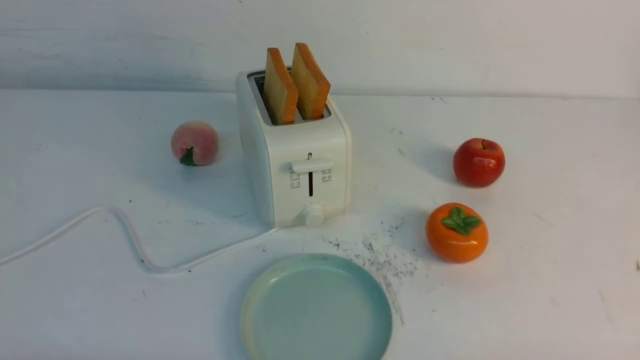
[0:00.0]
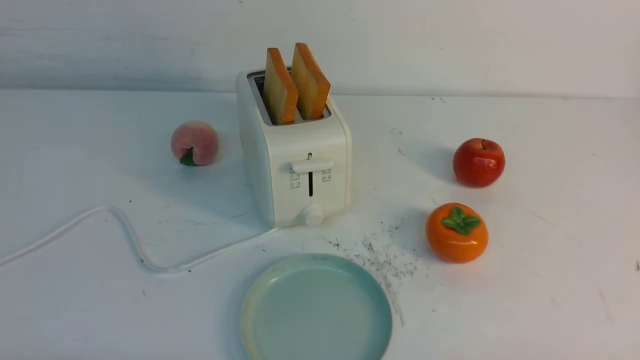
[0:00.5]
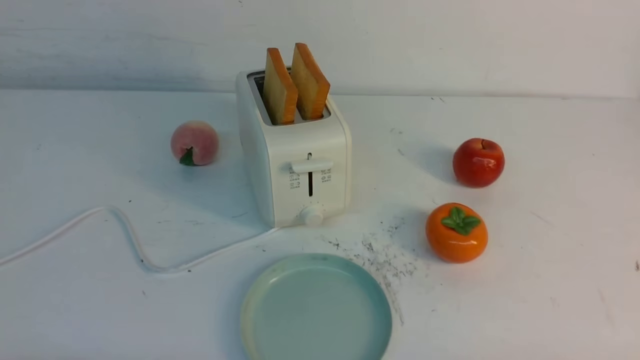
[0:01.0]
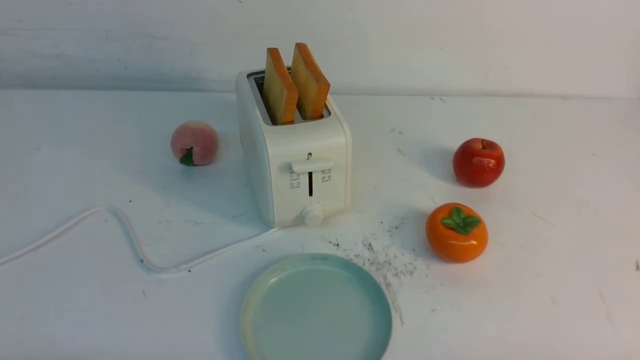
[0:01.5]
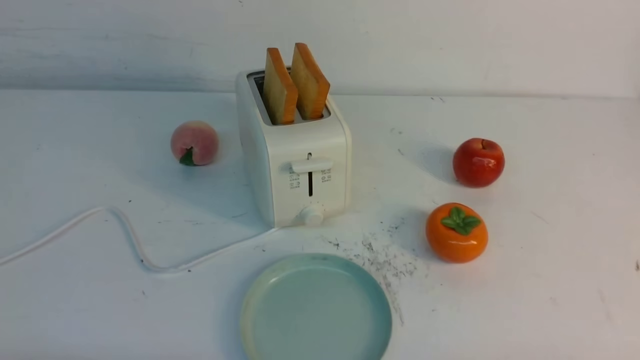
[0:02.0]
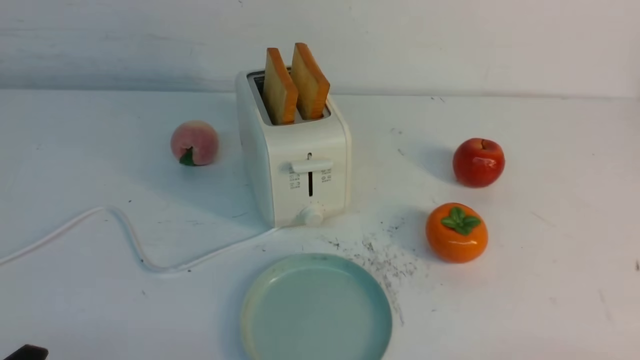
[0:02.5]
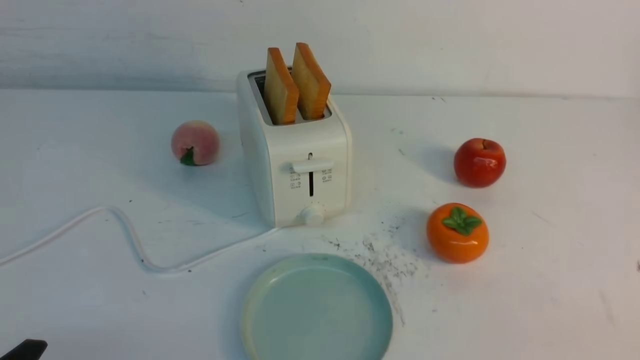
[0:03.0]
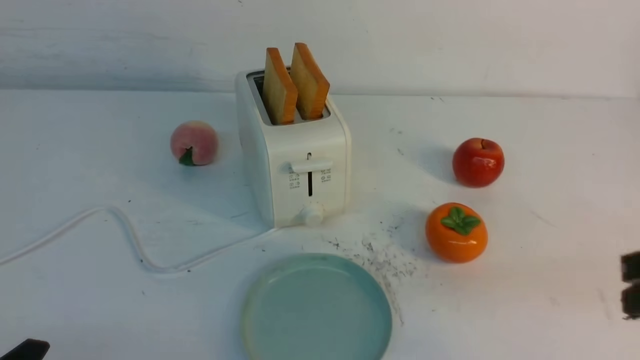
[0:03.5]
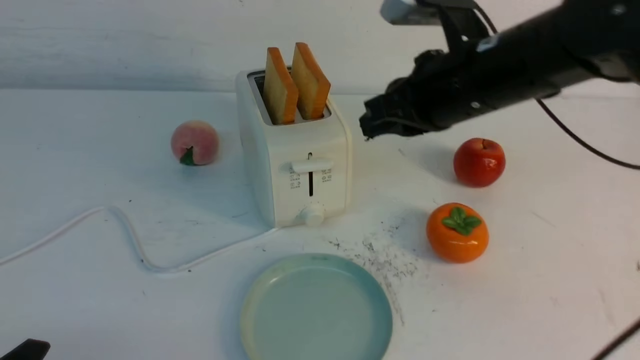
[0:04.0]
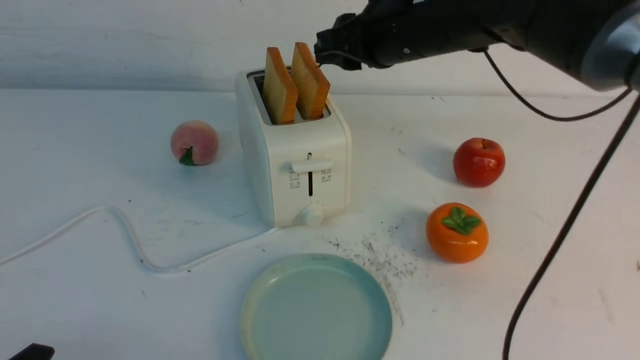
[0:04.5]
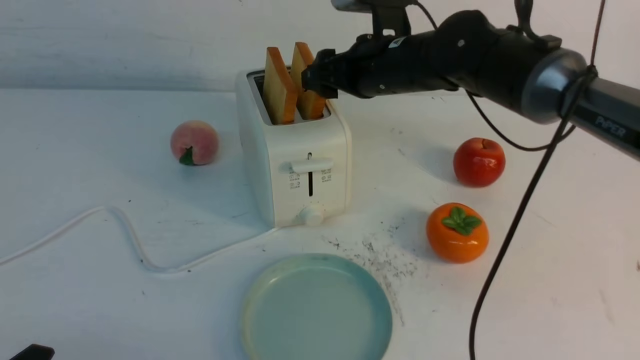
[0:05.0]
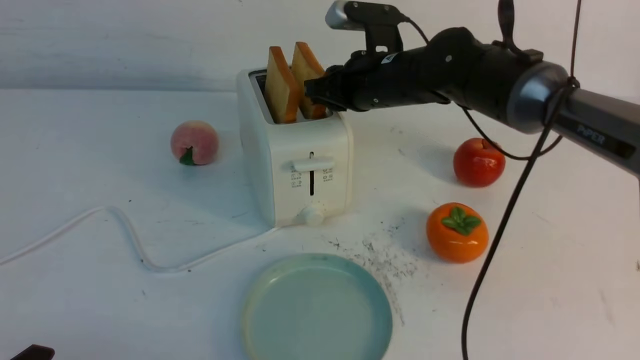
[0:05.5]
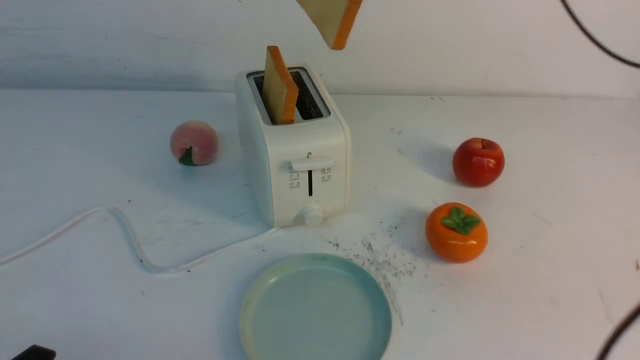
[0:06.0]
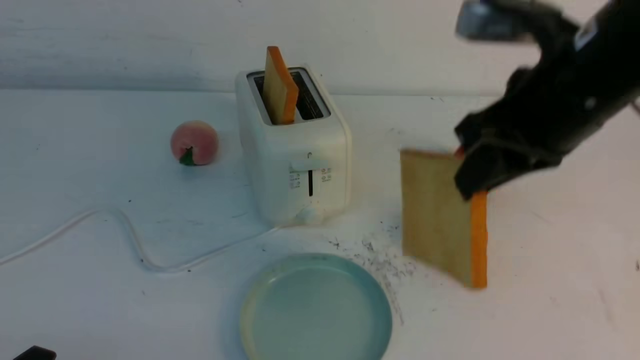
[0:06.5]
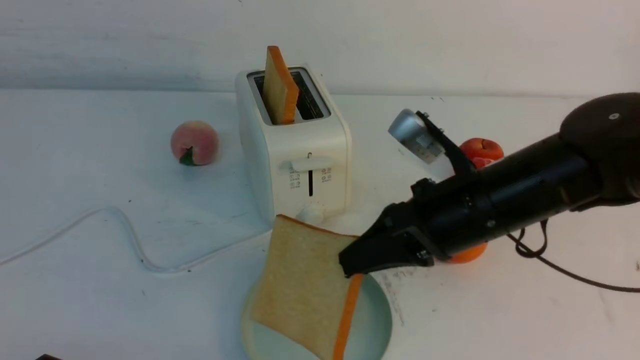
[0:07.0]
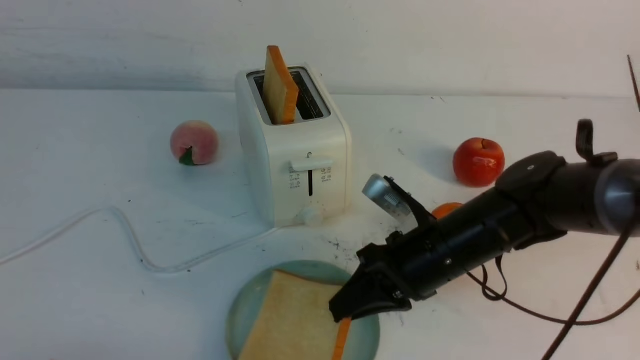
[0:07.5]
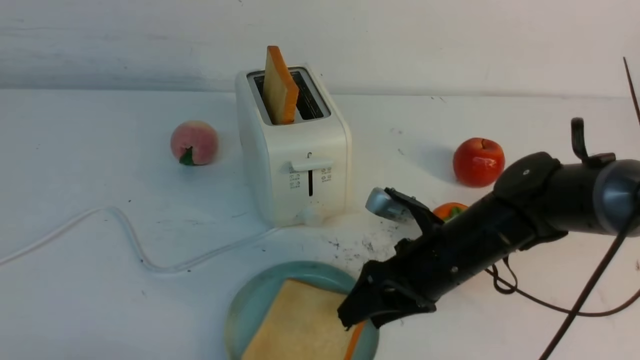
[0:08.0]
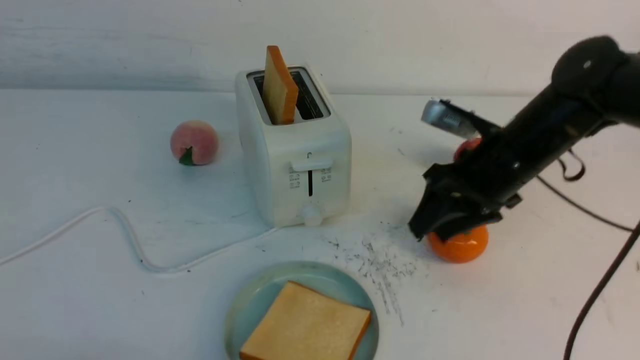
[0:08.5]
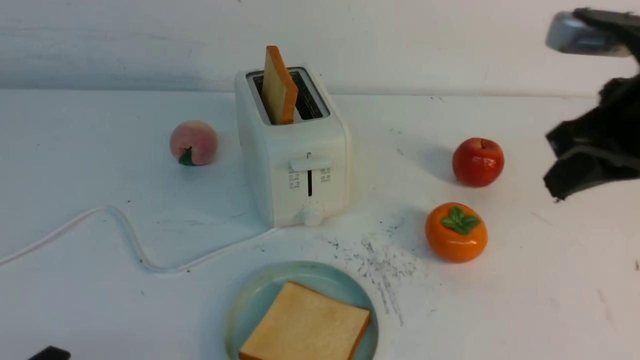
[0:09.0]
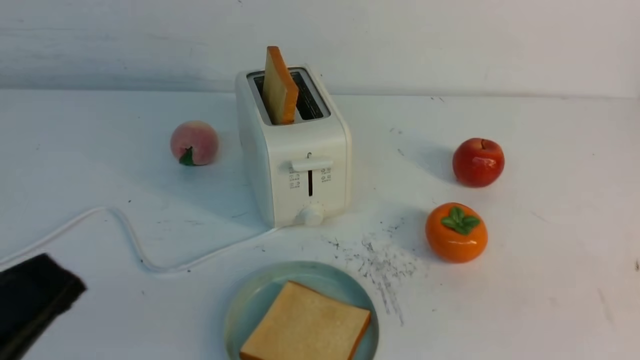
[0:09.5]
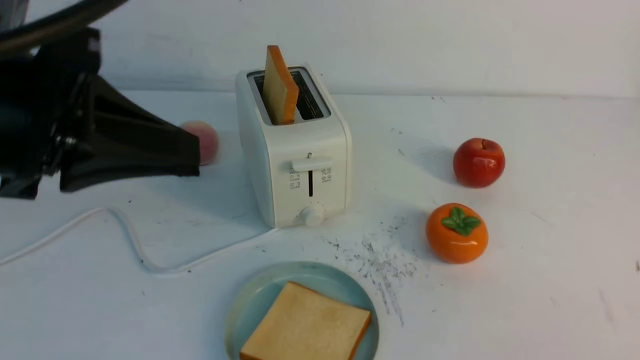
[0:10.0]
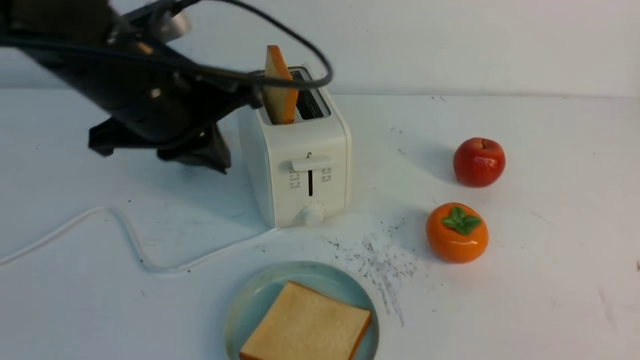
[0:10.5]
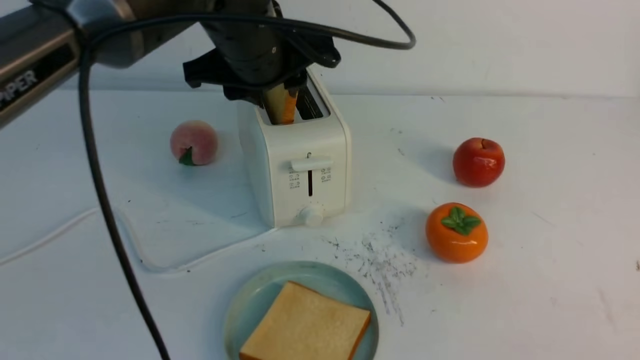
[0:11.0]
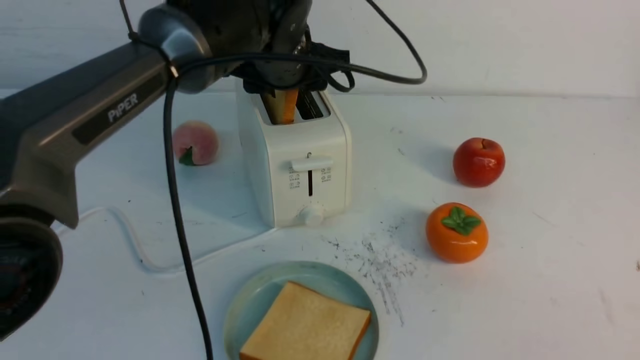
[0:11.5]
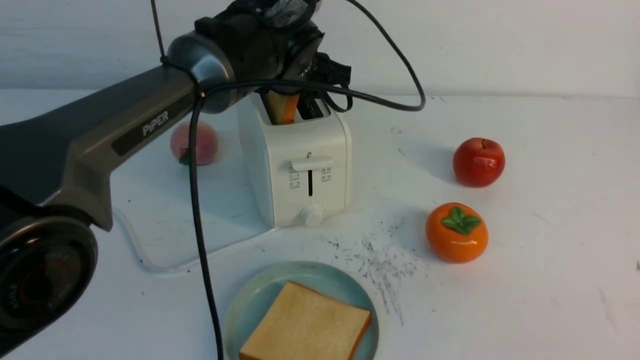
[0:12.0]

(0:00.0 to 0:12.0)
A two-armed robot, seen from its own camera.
Task of the whole recording: take toasted bread from bread machine on white table place on plate.
Step, 0:00.0 - 0:05.5: use the right arm to take out a slice of bread.
Step, 0:06.0 - 0:08.0: use the right arm to put a slice of bread into the plate.
0:00.0 - 0:02.0: Both grippers stay put.
0:02.0 - 0:04.0: The right gripper shifts roughly 40 cm forward, upward and to the left, and closes.
0:04.0 - 0:06.0: The right gripper goes approximately 10 cm upward, and opens, then closes again.
0:06.0 - 0:08.0: The right gripper goes about 25 cm downward, and opens.
0:08.0 - 0:10.0: The left gripper shifts roughly 25 cm upward and forward, and closes up. The right gripper goes approximately 40 cm backward, to the right and upward, and closes.
0:10.0 - 0:12.0: The left gripper goes some 30 cm forward and to the right, and opens its fingers.

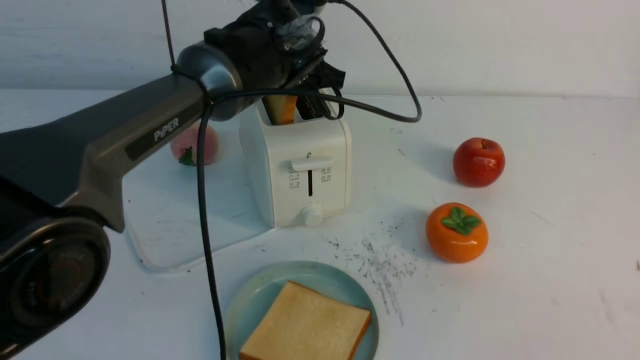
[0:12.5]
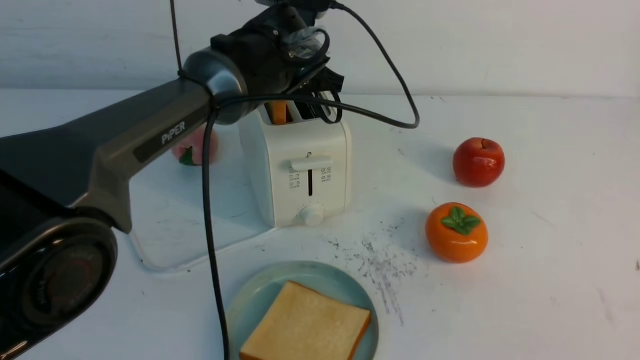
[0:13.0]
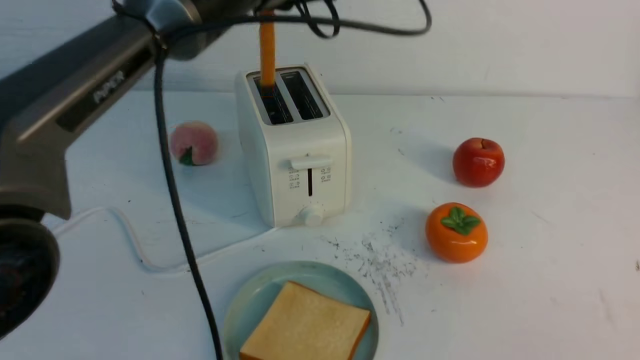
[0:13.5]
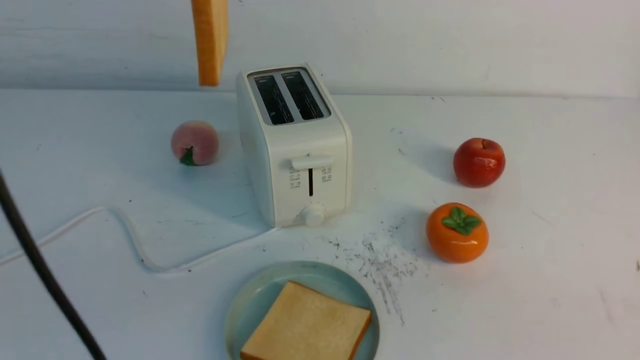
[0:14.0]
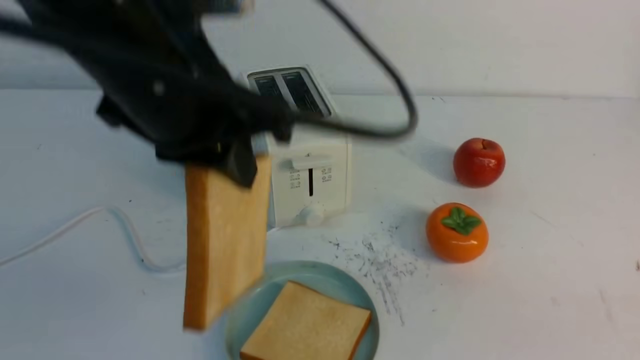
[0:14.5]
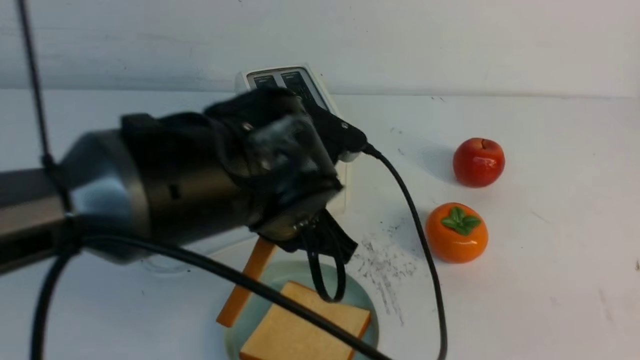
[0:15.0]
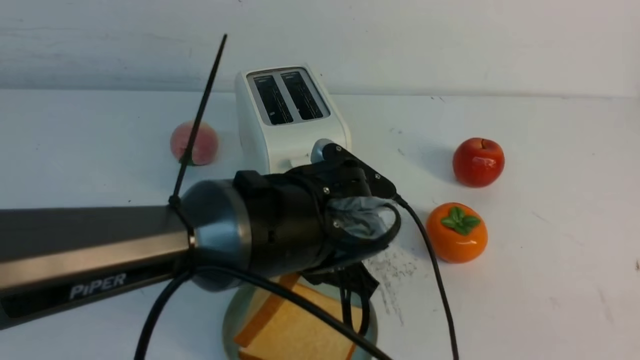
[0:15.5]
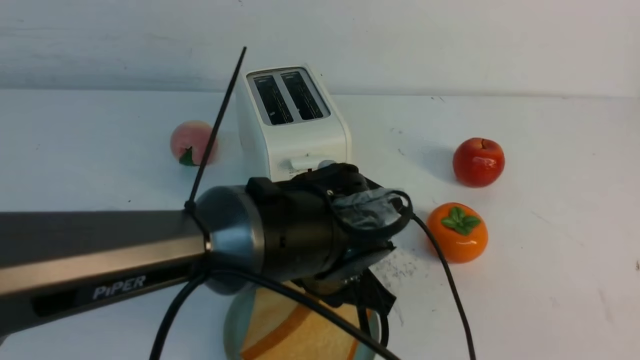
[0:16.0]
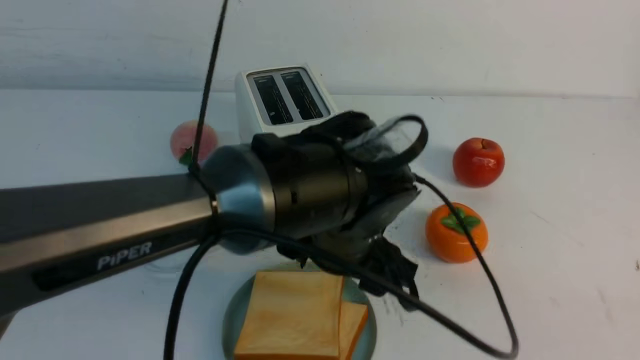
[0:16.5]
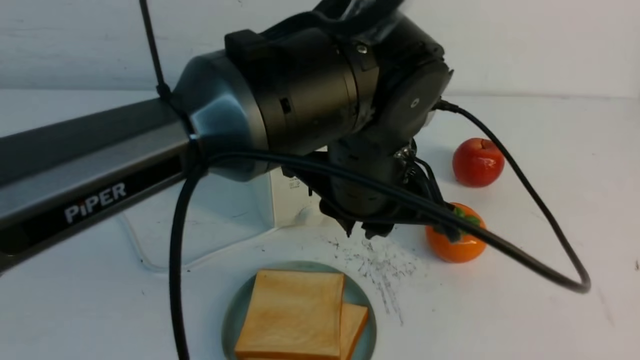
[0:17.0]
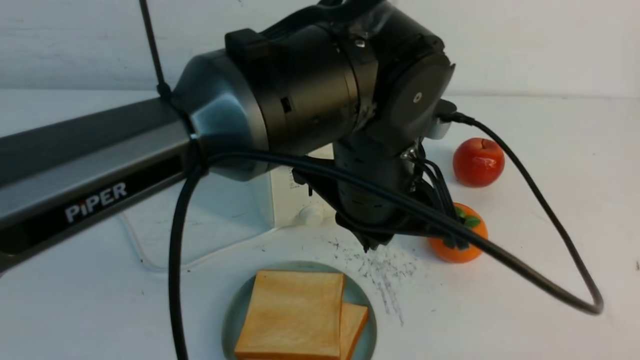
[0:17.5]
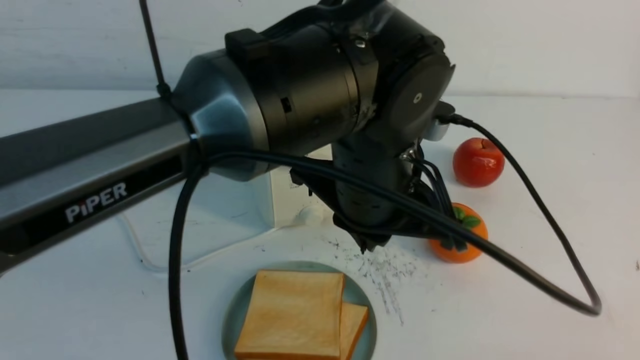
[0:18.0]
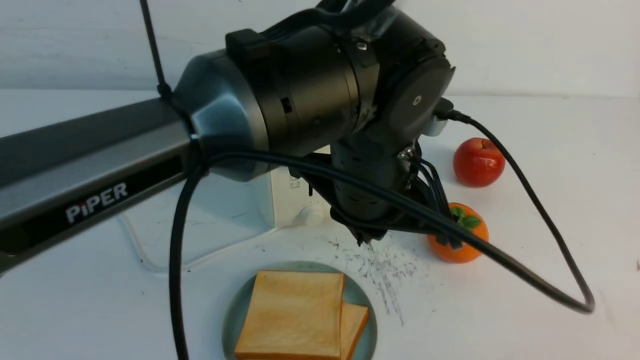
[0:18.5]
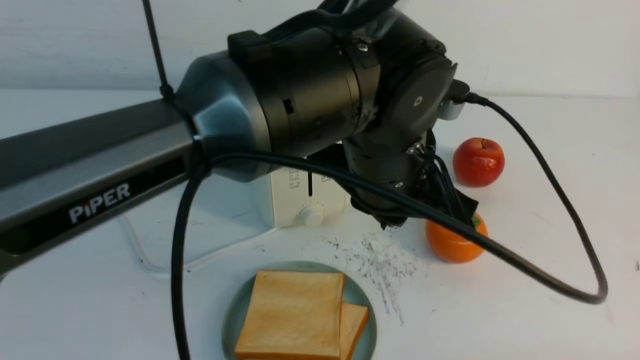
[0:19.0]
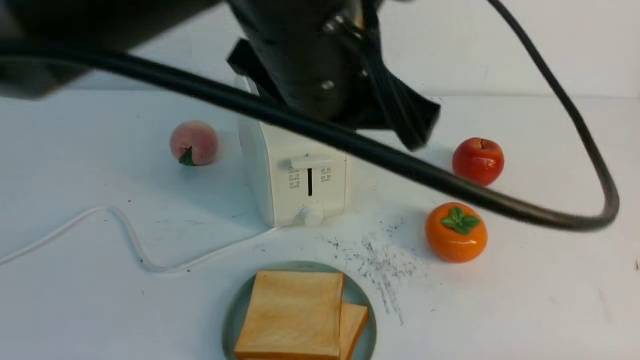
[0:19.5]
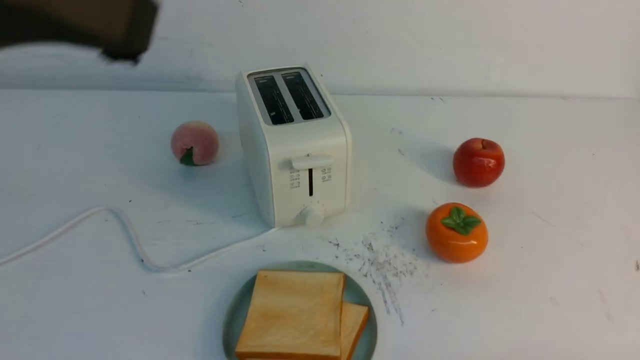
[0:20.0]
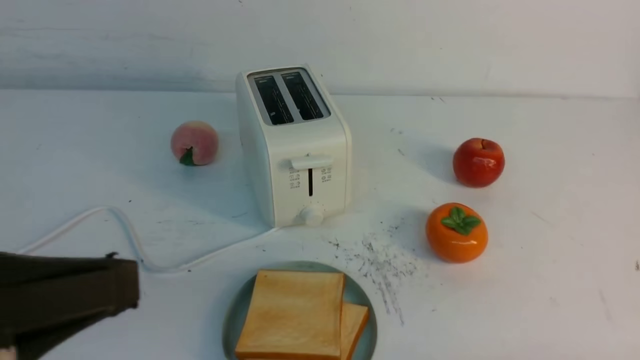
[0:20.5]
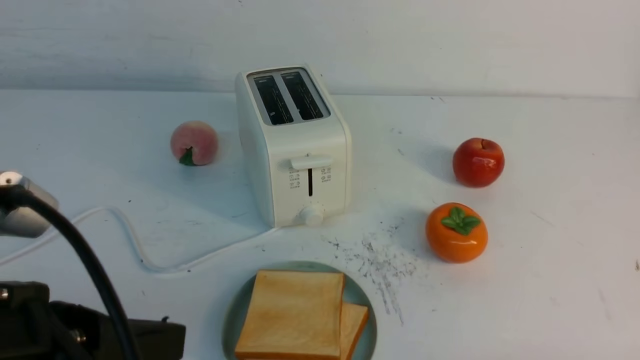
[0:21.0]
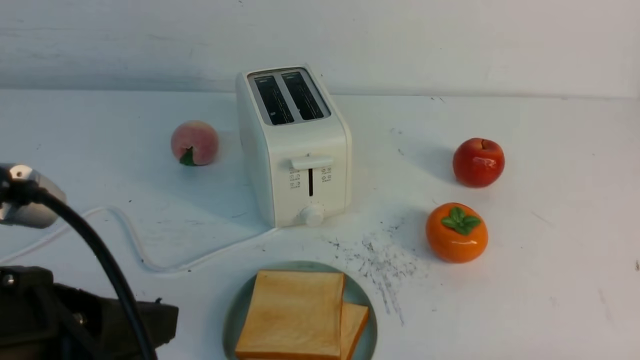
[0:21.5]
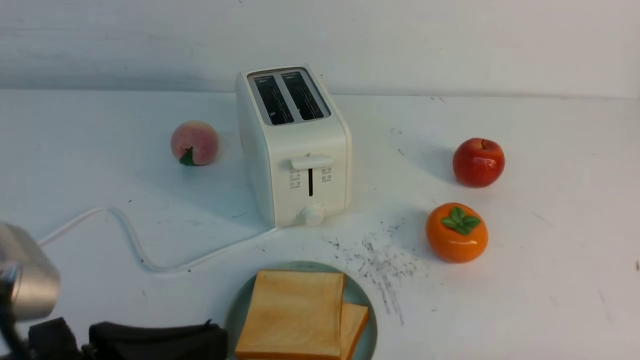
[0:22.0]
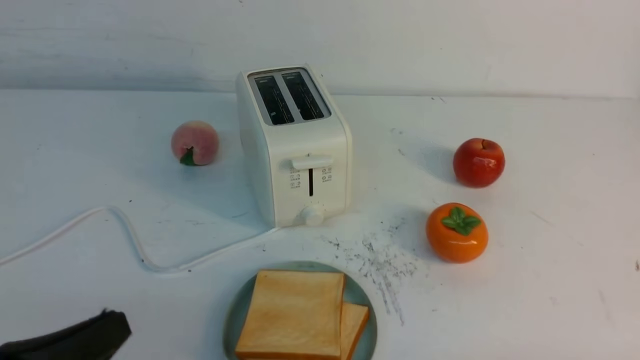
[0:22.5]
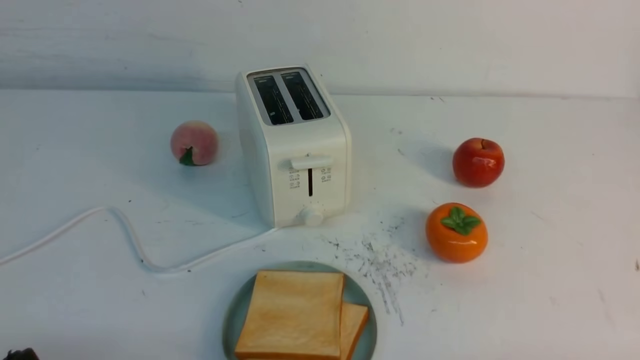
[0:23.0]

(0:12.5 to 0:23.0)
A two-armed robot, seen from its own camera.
Task of the whole recording: take toasted bread from bread machine on white table place on plate.
Step, 0:14.0 - 0:16.5: use the left arm to put a slice of bread into the empty plate.
0:12.5 - 0:14.5: The left gripper moves backward and upward, roughly 20 cm, and closes.
0:14.5 - 0:16.5: The left gripper goes some 20 cm downward and to the right, and opens.
0:16.5 - 0:19.0: The left gripper travels upward by about 5 cm, and closes its fingers. The right gripper heads downward, covering some 15 cm.
0:19.0 - 0:21.0: The left gripper goes about 30 cm to the left and backward.
0:21.0 - 0:23.0: The left gripper shifts about 15 cm downward and to the left.
